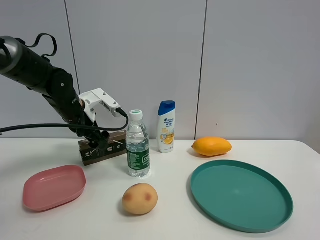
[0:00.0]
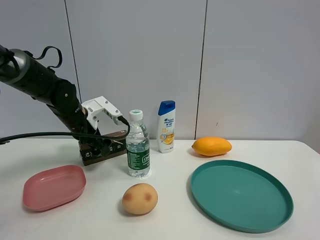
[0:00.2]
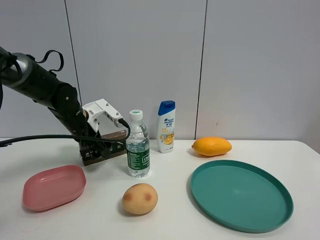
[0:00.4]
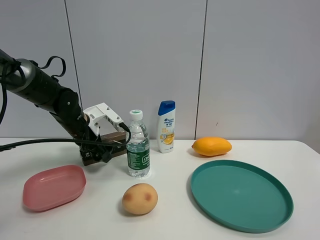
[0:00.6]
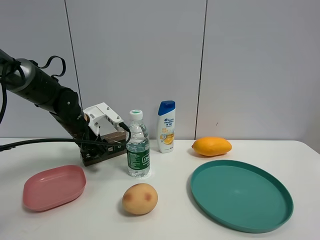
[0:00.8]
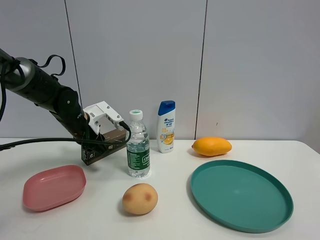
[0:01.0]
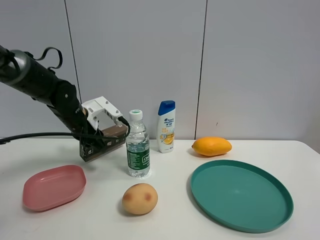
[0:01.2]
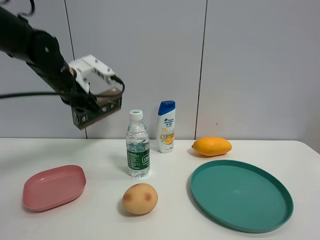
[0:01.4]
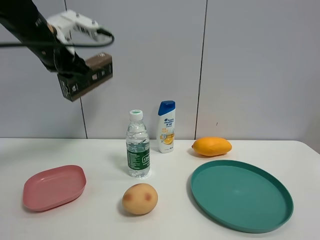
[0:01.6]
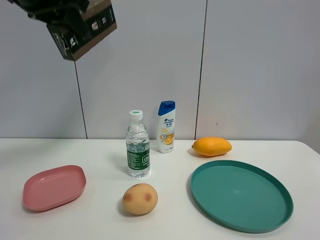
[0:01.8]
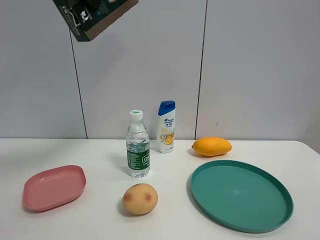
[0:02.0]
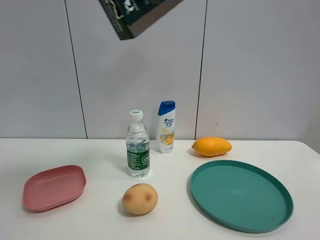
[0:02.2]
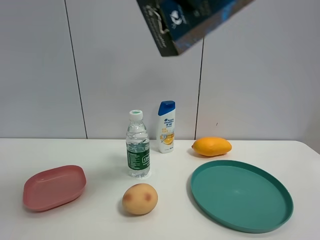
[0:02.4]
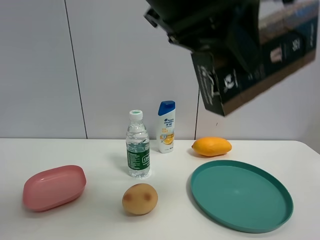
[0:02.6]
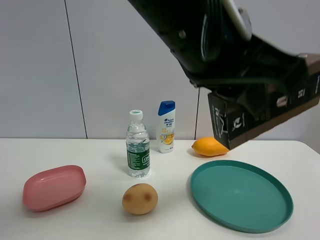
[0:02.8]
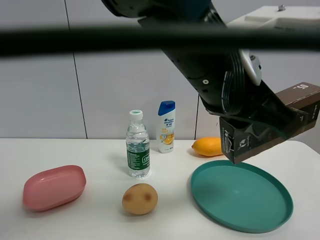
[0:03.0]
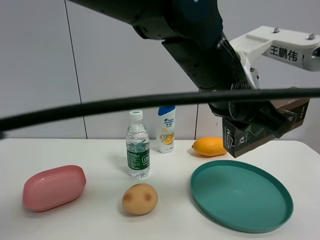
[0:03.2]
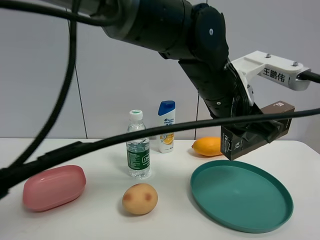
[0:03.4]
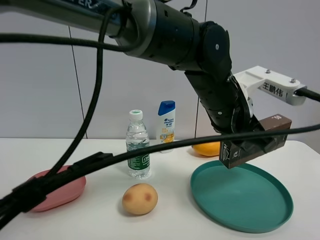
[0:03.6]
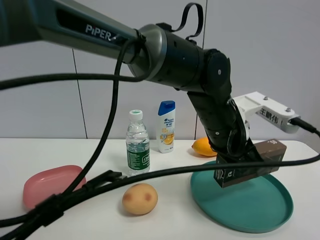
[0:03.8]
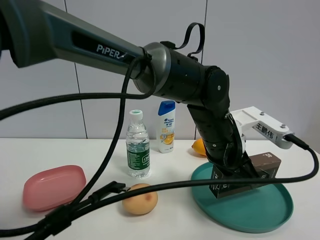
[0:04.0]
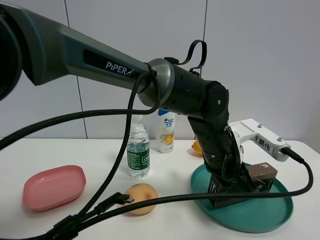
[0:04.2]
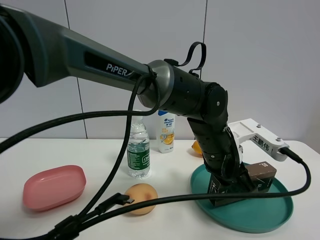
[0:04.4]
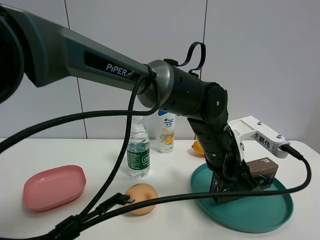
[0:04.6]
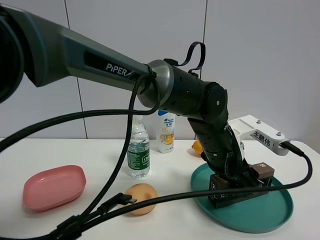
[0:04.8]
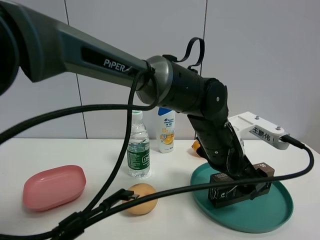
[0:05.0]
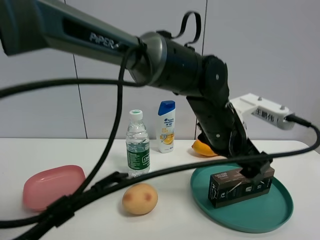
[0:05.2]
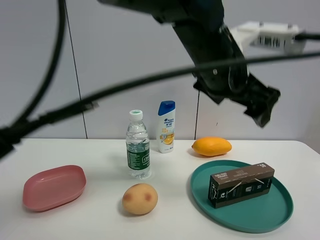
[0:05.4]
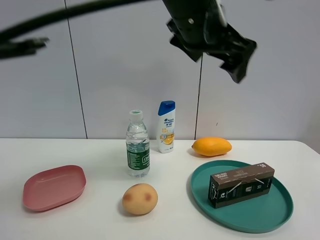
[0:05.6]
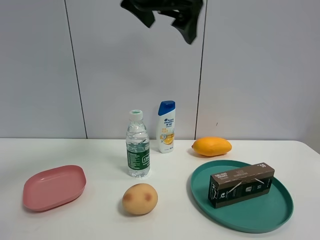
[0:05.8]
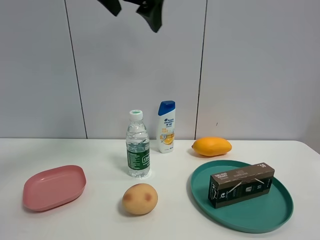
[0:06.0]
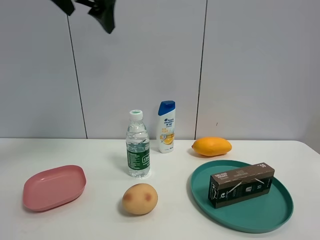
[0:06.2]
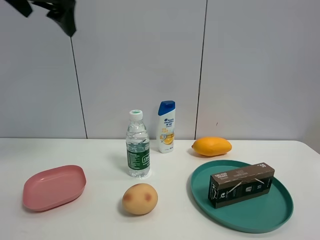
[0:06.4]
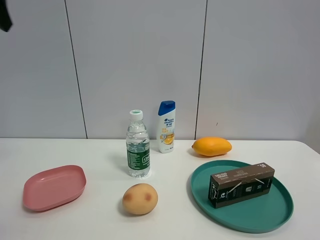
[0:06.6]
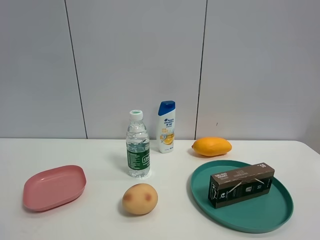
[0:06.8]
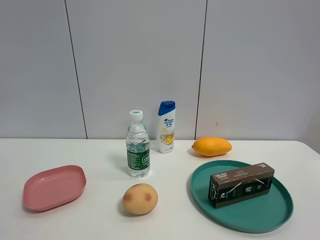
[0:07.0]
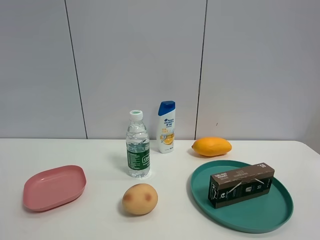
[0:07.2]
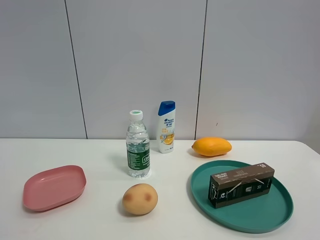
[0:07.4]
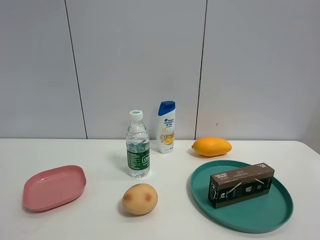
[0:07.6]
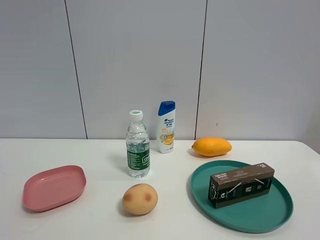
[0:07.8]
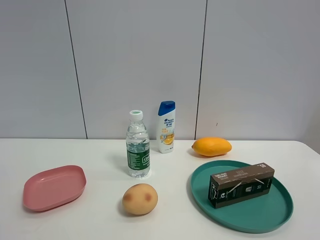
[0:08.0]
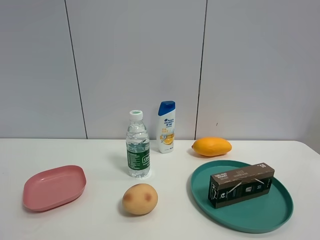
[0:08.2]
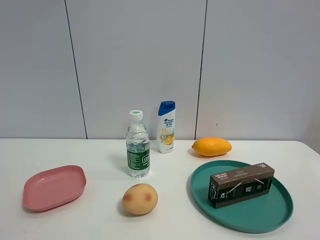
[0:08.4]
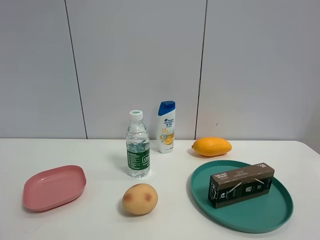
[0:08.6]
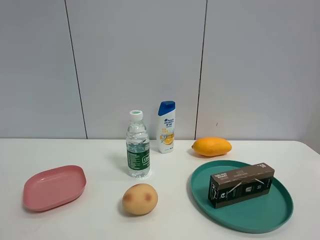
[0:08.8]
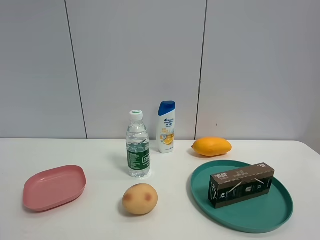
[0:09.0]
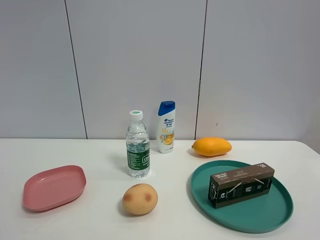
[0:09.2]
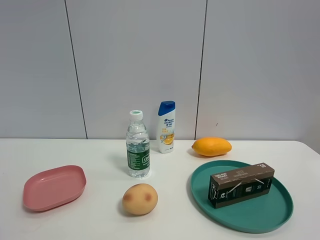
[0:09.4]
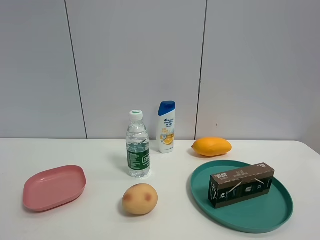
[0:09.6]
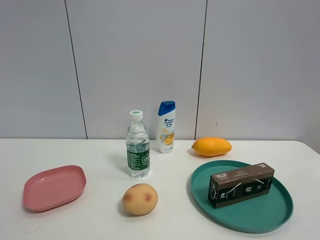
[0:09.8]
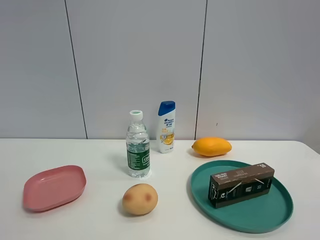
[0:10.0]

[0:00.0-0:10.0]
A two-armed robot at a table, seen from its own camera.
Task of the whole recording: the gripper move the object.
Step, 0:01.0 to 0:04.8: Place the brown box into the green plate with the left gripper.
0:00.0 to 0:01.4: The left gripper shifts some 10 cm upward, and closes up.
0:01.4 to 0:02.8: The left gripper heads to the right and backward, covering about 30 cm.
0:02.8 to 0:04.2: The left gripper heads downward and forward, covering about 20 cm.
0:04.2 to 0:05.8: The left gripper travels upward and to the left by about 30 cm, and opens up.
0:05.8 to 0:07.2: The left gripper moves to the left and backward, roughly 40 cm.

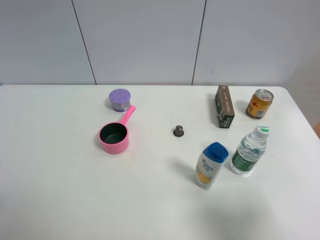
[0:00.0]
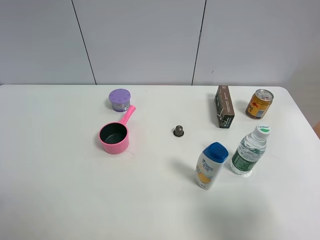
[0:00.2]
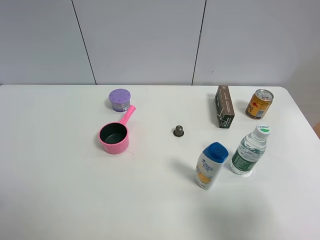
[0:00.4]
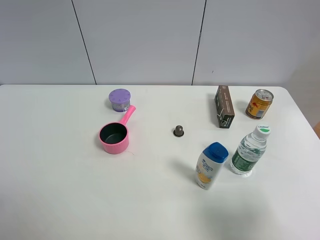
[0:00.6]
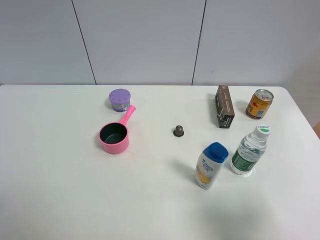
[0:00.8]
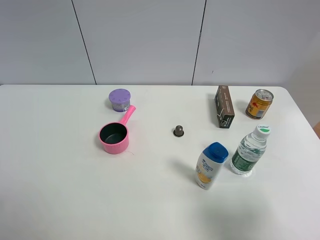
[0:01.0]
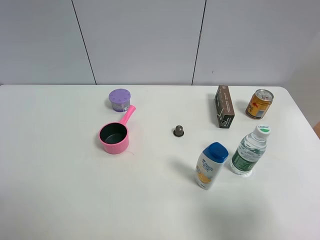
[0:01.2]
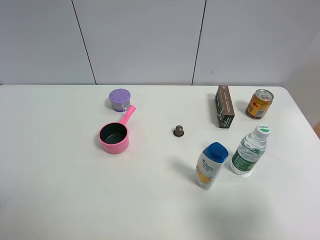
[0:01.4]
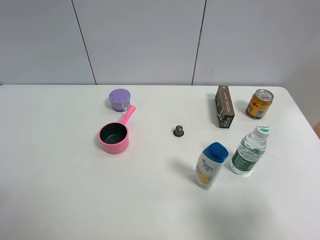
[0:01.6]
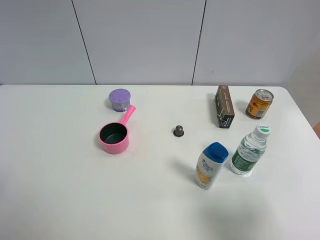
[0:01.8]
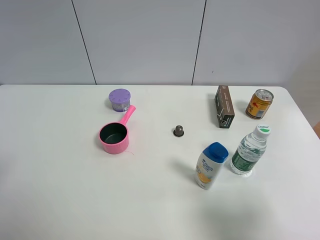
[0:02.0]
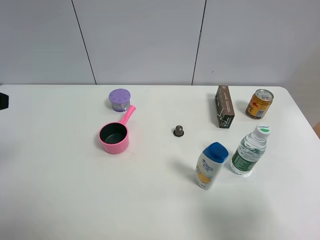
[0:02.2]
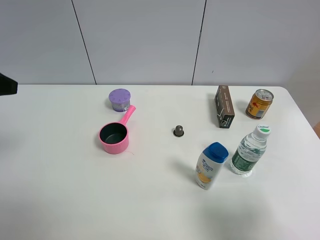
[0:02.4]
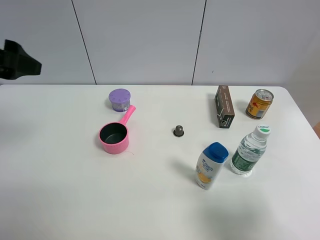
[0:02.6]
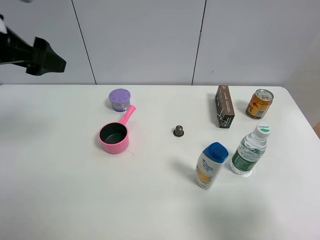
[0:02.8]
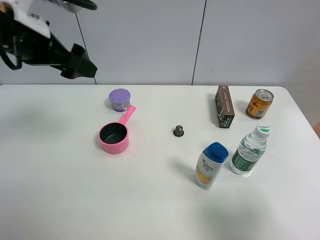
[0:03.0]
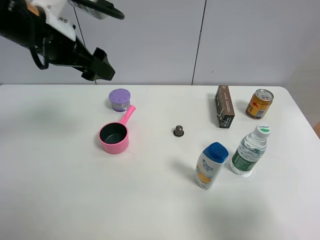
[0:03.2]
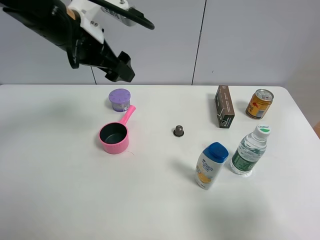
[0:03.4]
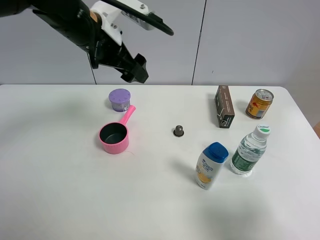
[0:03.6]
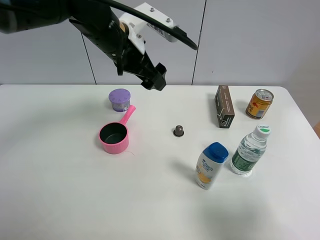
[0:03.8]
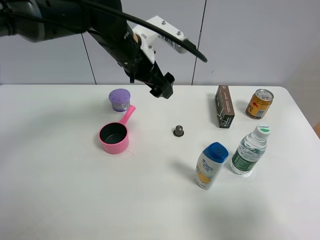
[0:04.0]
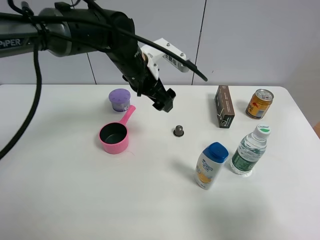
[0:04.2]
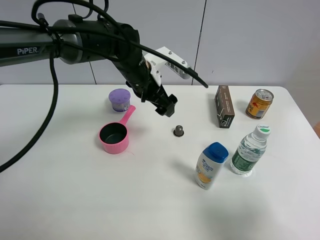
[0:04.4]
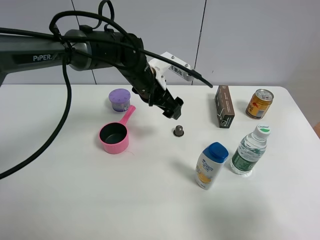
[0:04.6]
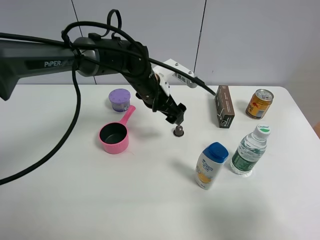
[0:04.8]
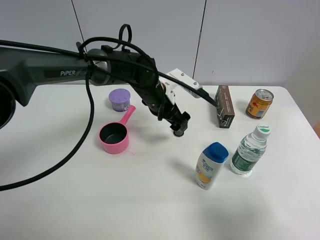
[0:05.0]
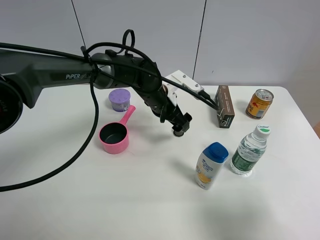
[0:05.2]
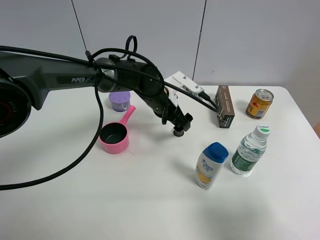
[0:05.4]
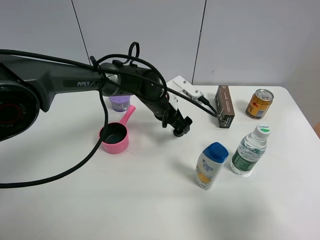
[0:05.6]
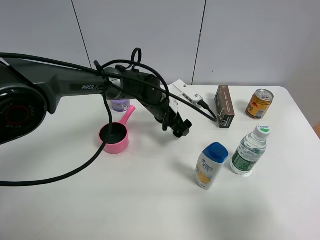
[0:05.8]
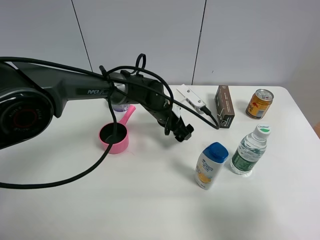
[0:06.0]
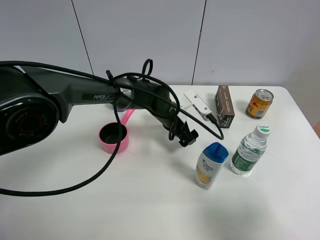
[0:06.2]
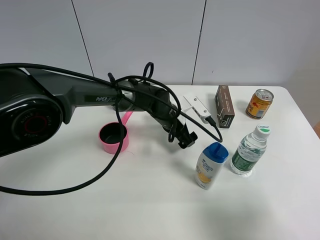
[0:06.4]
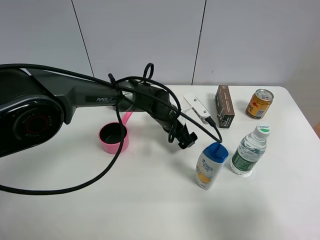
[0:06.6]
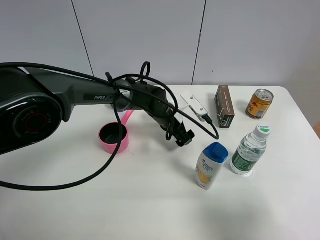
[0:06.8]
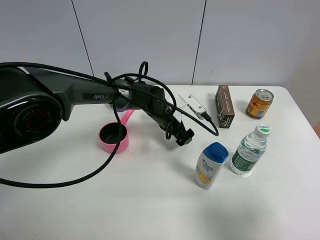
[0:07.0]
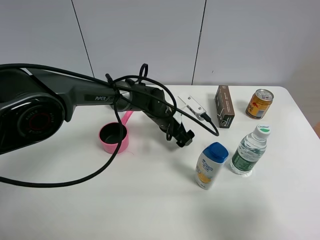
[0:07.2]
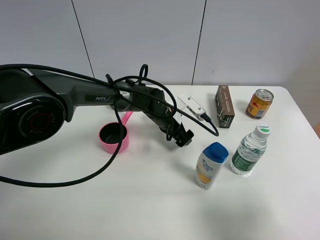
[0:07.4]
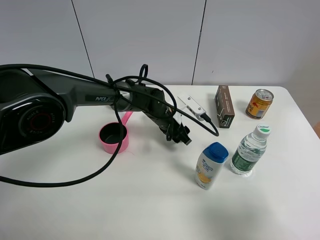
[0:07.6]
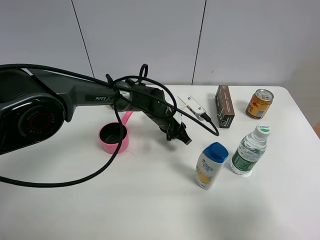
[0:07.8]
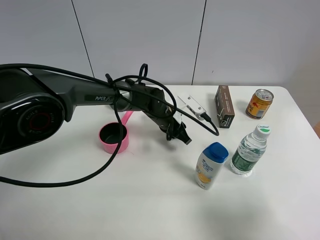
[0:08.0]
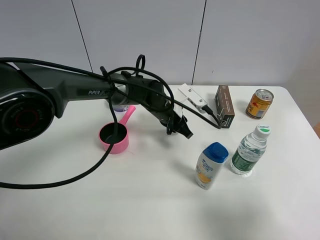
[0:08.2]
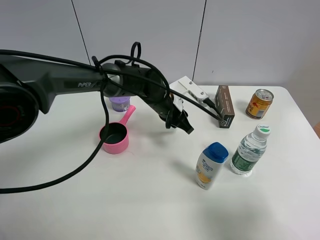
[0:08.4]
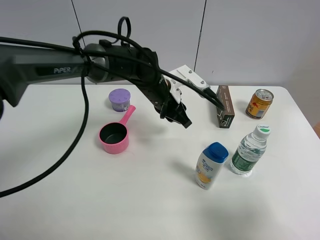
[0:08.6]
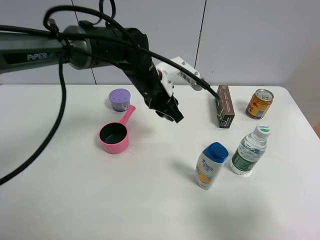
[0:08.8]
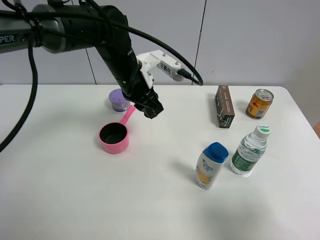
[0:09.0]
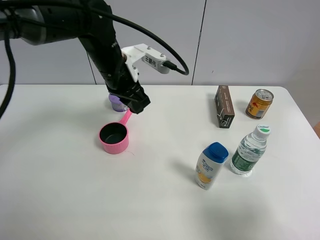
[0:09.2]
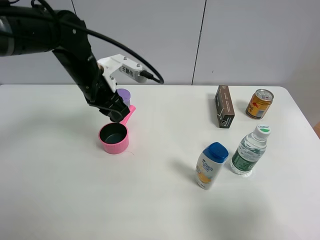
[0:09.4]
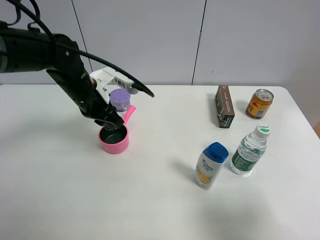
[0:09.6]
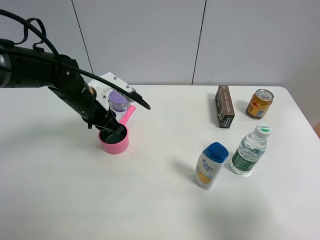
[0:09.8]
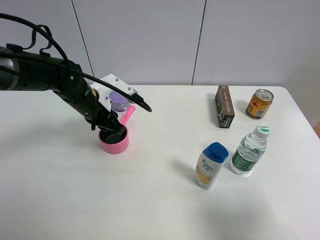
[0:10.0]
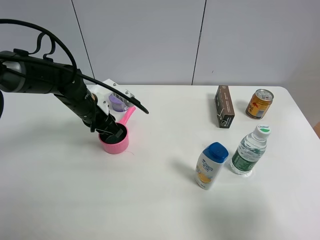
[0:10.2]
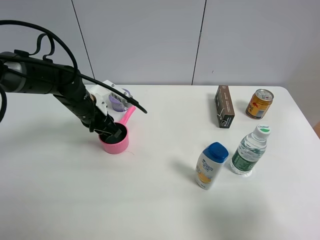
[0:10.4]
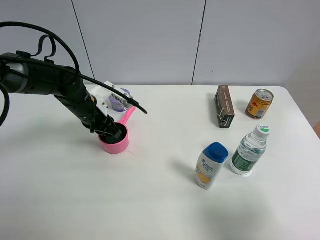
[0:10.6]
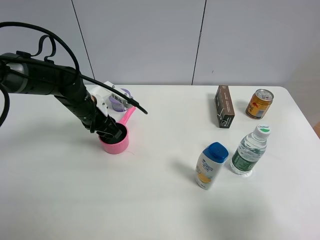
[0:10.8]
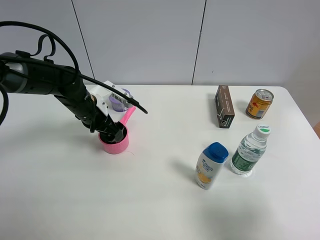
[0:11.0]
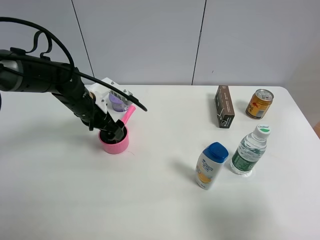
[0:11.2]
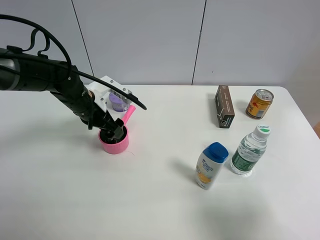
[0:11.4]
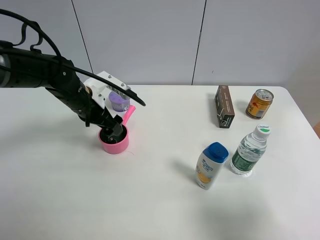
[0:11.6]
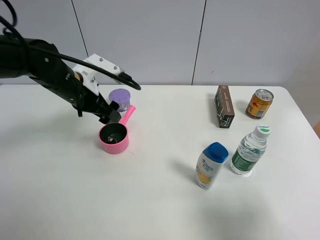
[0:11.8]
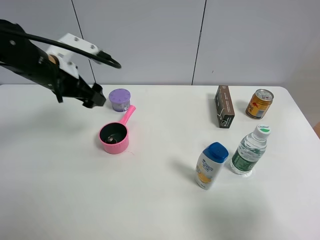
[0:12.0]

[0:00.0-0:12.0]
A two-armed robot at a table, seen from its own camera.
Task of the whole recording: the gripper move the object.
Step, 0:00.0 to 0:07.6: Grasp the coffee capsule with the left gripper.
Step, 0:07.8 to 0:10.8: Place the coffee capsule into the pink pot with the left gripper.
0:01.6 to 0:03.0: The left gripper shifts about 30 cm forward and to the right.
0:03.0 to 0:04.4: The left gripper travels to the right, downward and forward by about 25 cm.
0:04.4 to 0:06.0: The left gripper is displaced downward and to the right by about 10 cm.
0:06.0 to 0:07.6: The left gripper closes up.
0:07.6 to 0:09.0: The left gripper shifts about 20 cm upward and to the left.
0:09.0 to 0:10.4: The left gripper moves to the left and downward, approximately 15 cm.
0:10.4 to 0:12.0: The left gripper moves upward and to the left, roughly 15 cm, and opens.
